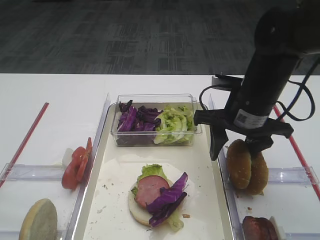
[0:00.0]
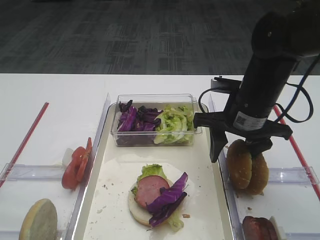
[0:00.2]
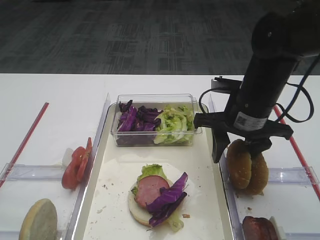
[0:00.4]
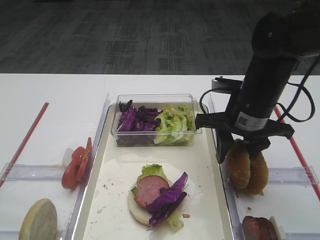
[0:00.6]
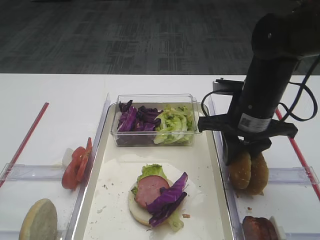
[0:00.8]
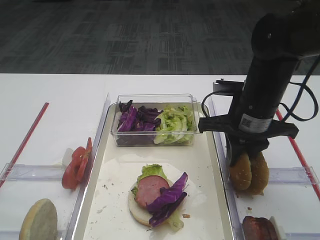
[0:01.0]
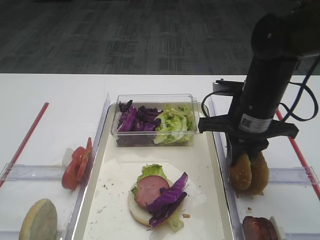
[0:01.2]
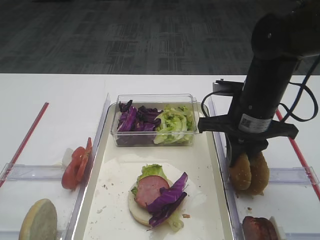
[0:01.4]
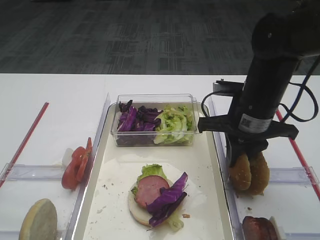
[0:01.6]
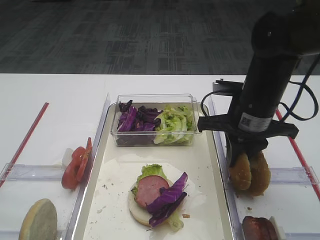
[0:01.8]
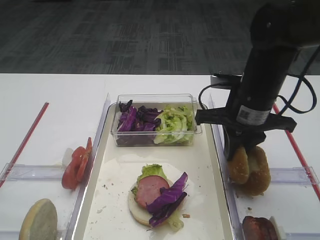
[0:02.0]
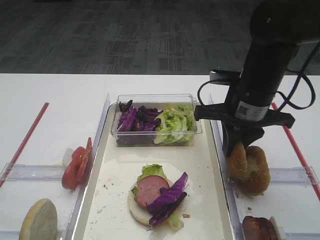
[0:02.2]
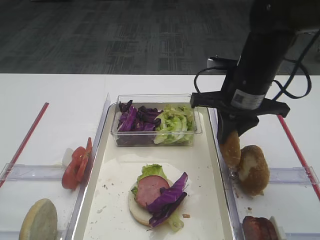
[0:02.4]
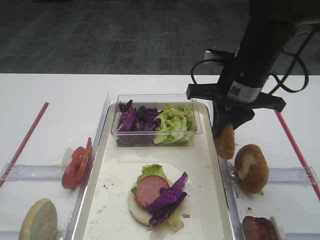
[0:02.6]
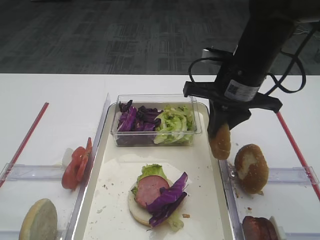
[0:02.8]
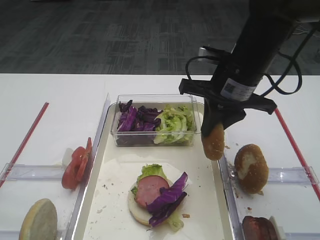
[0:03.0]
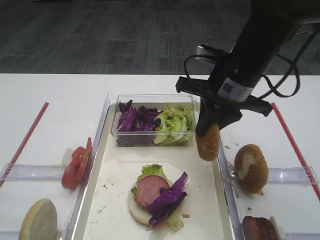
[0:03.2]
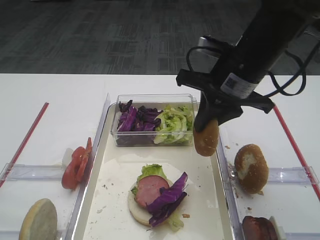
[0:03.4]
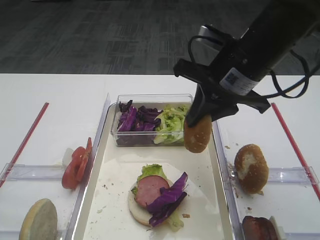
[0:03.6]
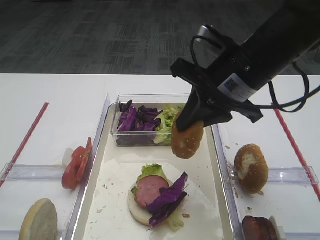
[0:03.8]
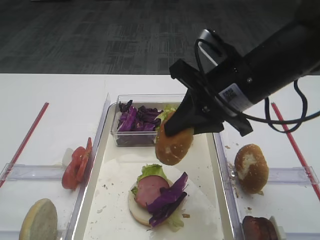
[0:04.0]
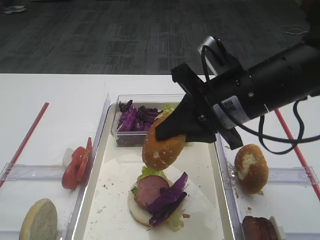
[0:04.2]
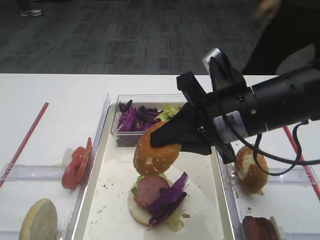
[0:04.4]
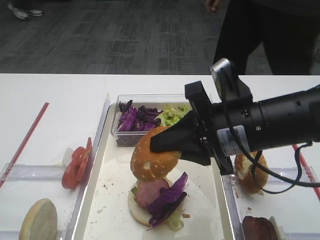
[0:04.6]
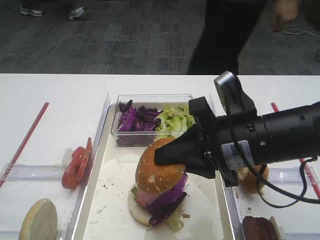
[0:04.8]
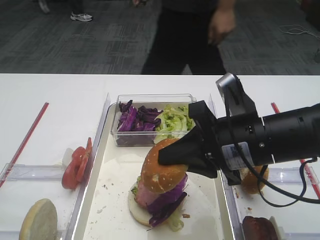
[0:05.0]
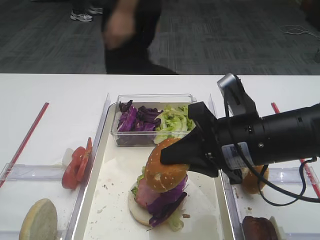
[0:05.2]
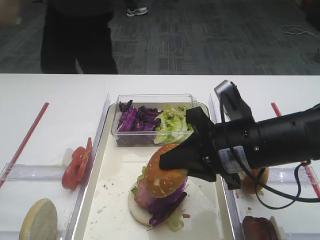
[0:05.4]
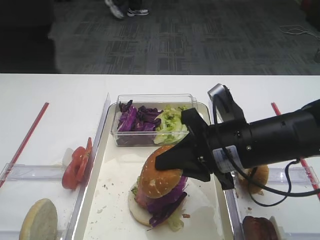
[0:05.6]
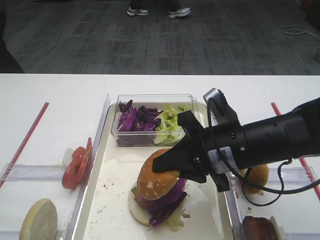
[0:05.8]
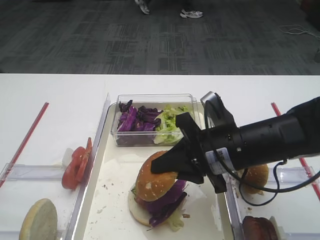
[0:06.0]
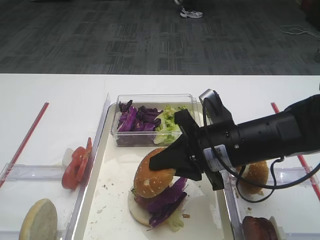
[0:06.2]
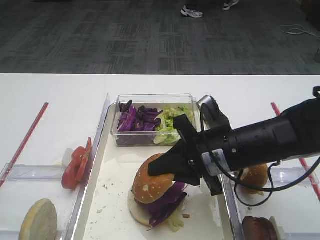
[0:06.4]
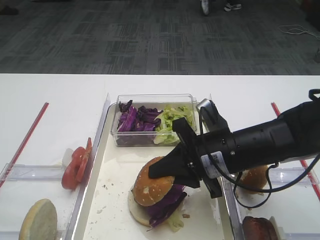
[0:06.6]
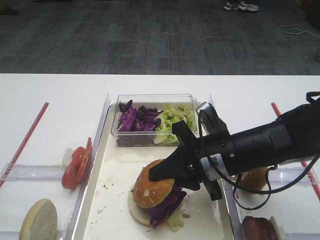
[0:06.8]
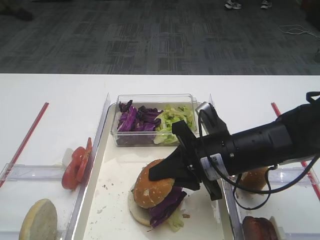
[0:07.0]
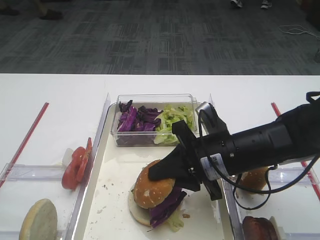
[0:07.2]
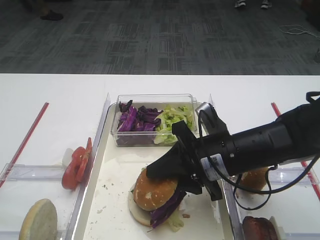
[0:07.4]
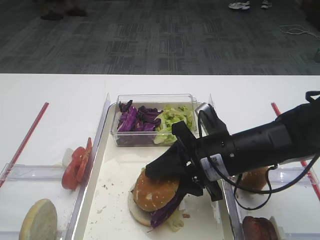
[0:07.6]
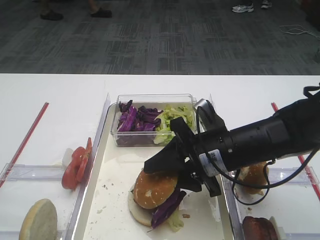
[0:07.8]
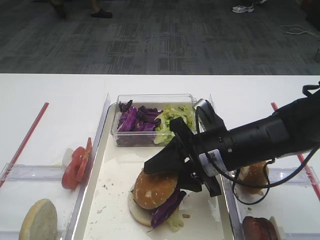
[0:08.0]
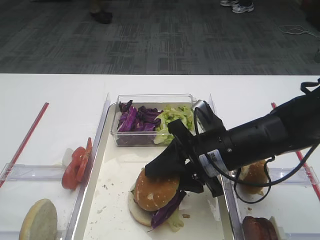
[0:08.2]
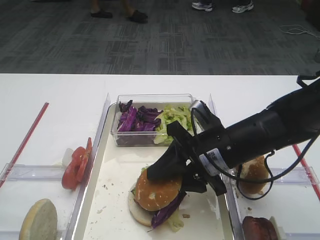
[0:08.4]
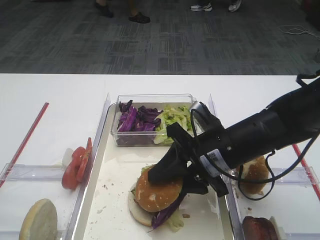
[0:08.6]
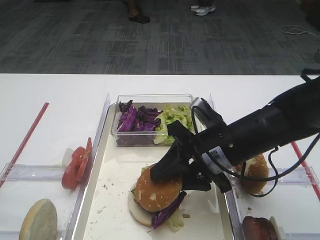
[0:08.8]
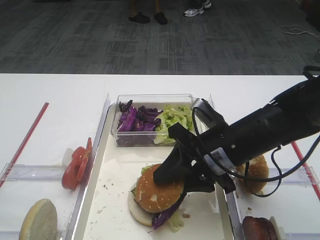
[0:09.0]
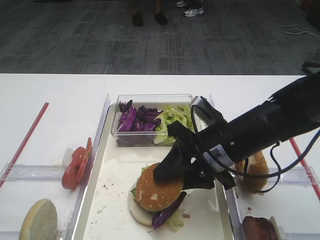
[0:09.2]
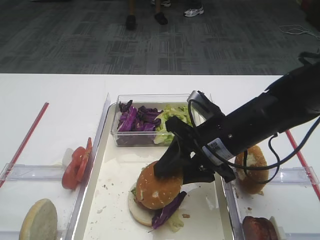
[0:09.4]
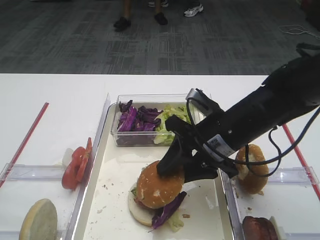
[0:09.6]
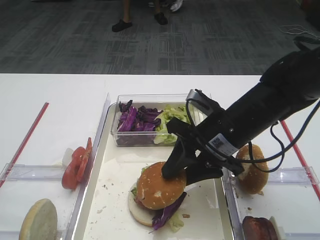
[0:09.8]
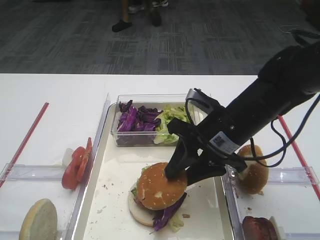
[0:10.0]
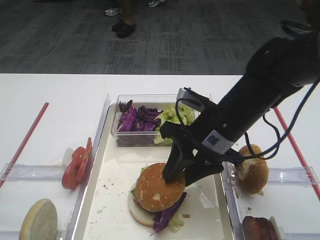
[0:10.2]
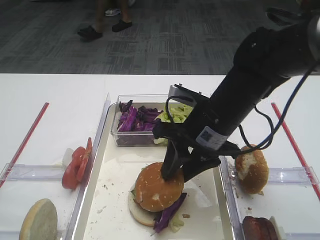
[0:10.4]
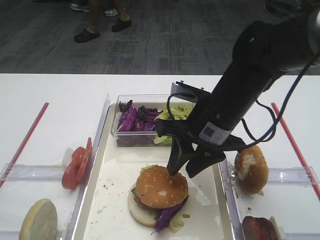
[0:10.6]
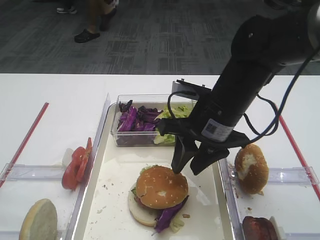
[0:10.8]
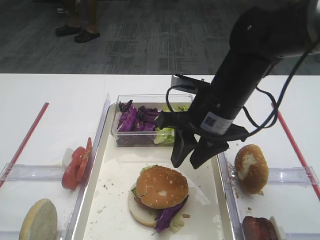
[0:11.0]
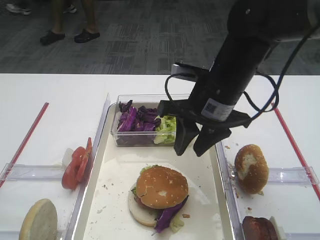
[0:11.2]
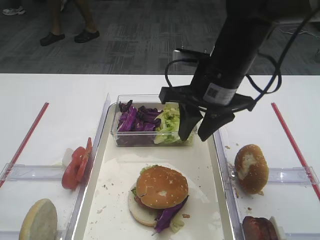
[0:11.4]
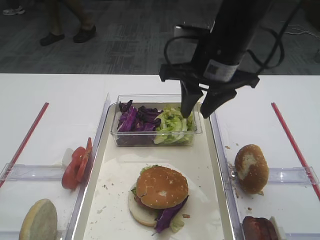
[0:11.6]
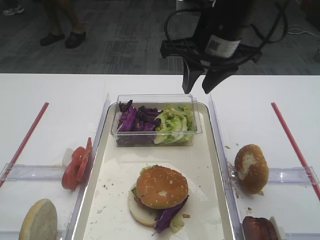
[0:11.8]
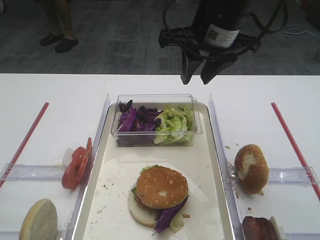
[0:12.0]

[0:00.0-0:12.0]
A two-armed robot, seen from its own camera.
Step, 0:00.0 to 0:02.8: Pick up the hamburger lid with the right gripper.
Step, 0:03.0 to 0:11.0: Place the hamburger lid on the purple cabbage with the right gripper.
0:00.0 to 0:01.6: The right gripper closes.
0:01.6 to 0:03.0: The right gripper ends up approximately 5 cm from where it was.
0:03.0 to 0:04.4: The right gripper goes about 10 cm backward.
0:04.4 to 0:06.0: The right gripper goes some 5 cm downward.
0:06.0 to 0:07.6: The right gripper opens up.
0:07.6 to 0:09.0: The grippers make only small movements.
0:10.4 to 0:12.0: The right gripper shifts roughly 15 cm upward and forward.

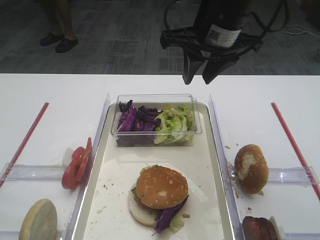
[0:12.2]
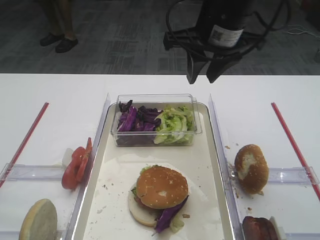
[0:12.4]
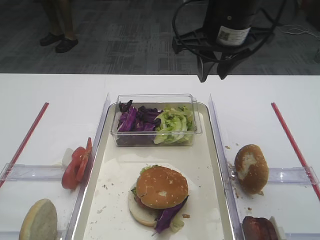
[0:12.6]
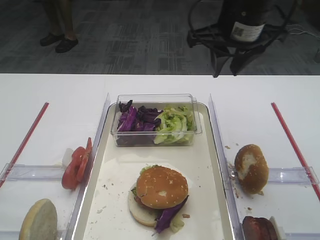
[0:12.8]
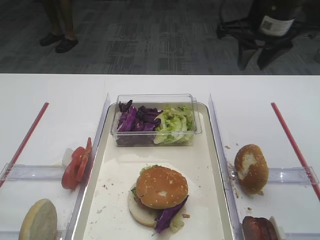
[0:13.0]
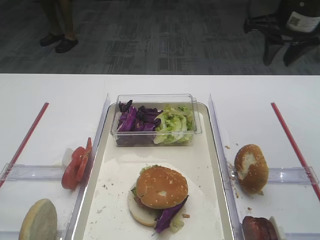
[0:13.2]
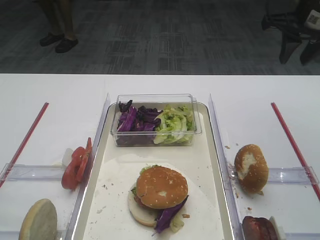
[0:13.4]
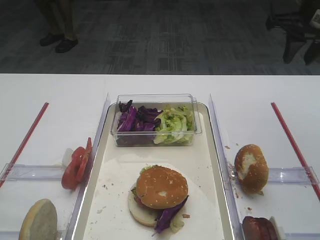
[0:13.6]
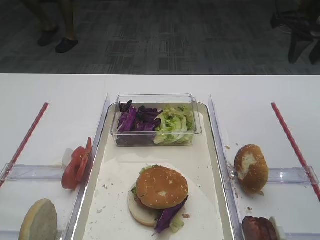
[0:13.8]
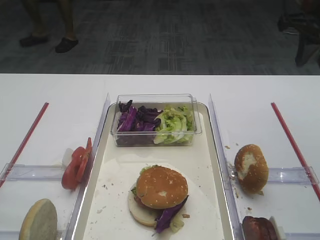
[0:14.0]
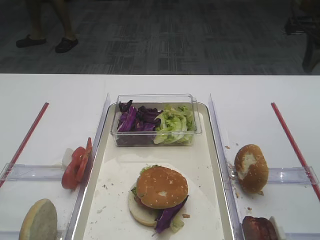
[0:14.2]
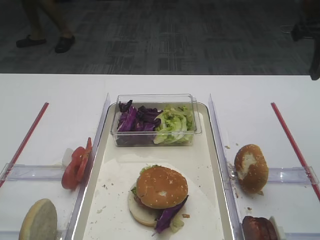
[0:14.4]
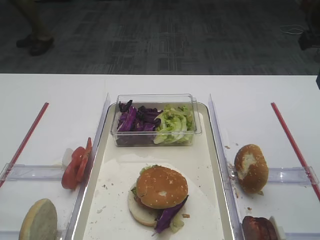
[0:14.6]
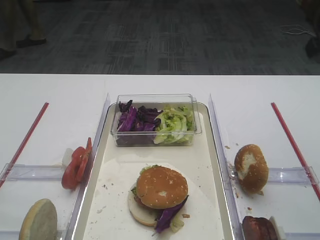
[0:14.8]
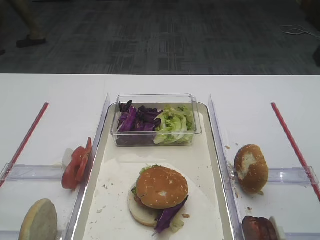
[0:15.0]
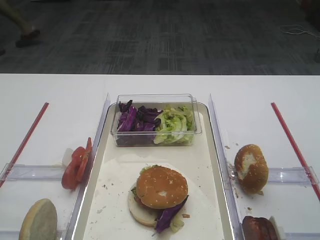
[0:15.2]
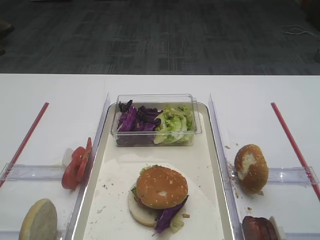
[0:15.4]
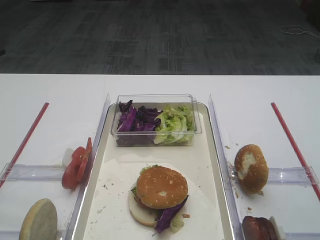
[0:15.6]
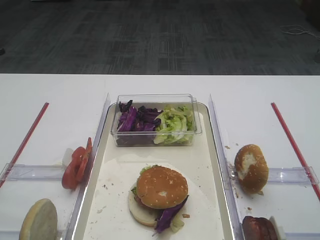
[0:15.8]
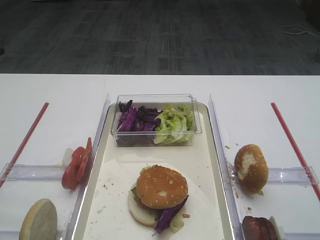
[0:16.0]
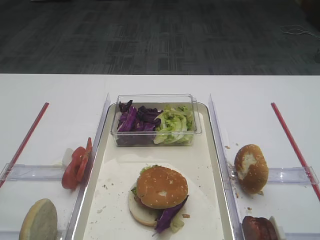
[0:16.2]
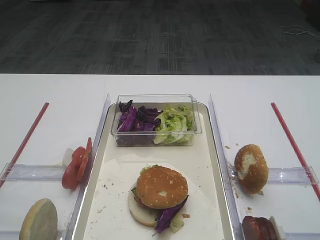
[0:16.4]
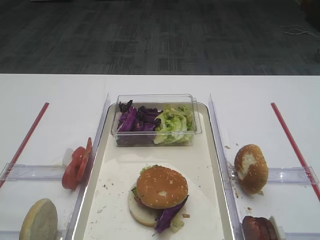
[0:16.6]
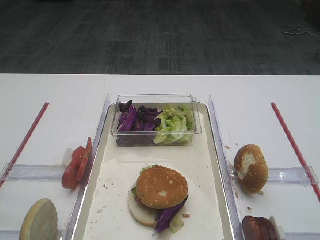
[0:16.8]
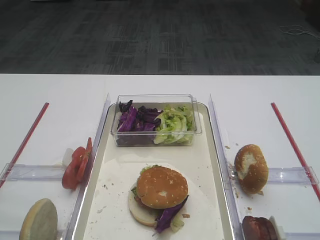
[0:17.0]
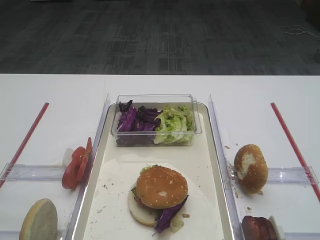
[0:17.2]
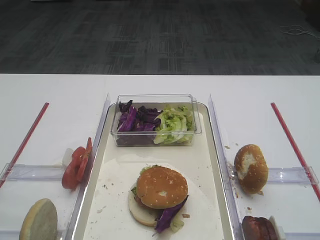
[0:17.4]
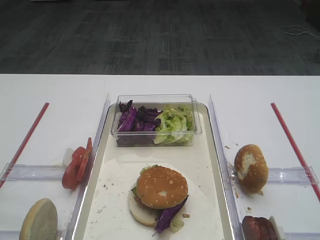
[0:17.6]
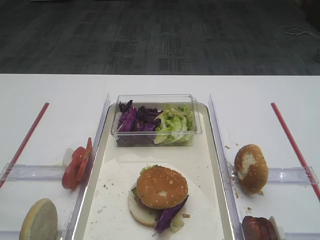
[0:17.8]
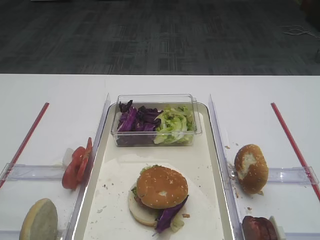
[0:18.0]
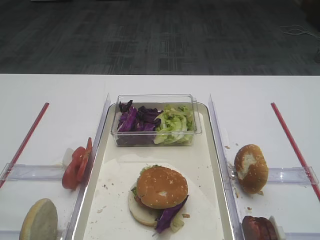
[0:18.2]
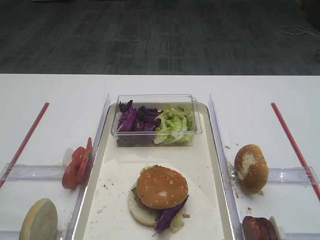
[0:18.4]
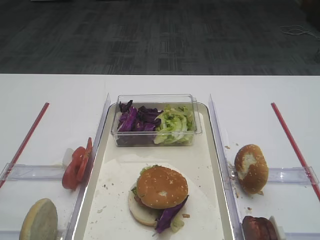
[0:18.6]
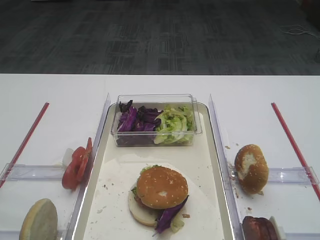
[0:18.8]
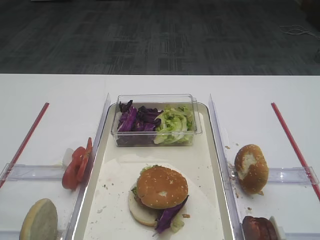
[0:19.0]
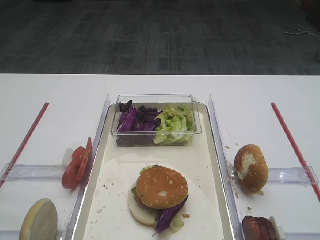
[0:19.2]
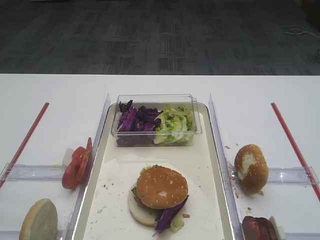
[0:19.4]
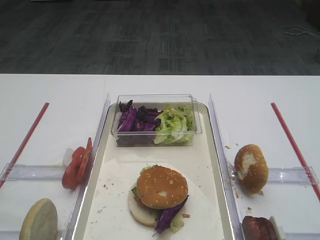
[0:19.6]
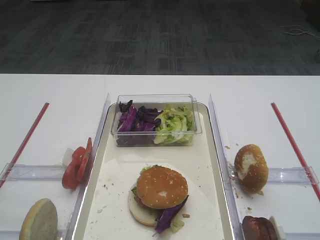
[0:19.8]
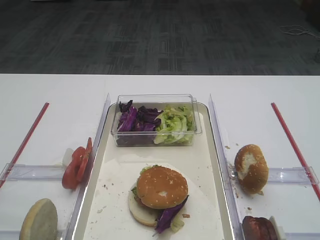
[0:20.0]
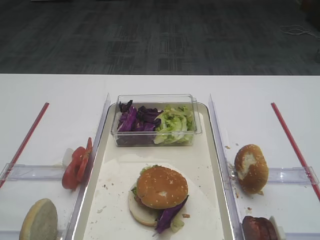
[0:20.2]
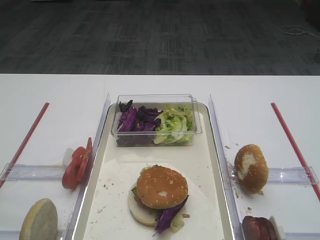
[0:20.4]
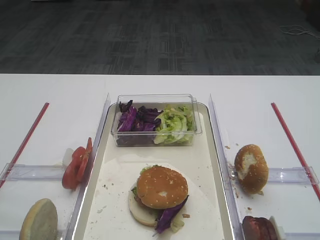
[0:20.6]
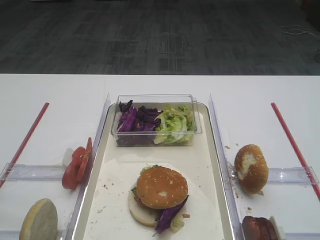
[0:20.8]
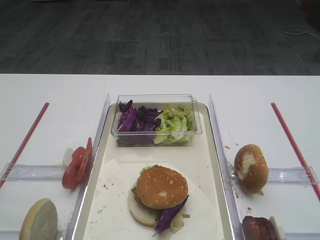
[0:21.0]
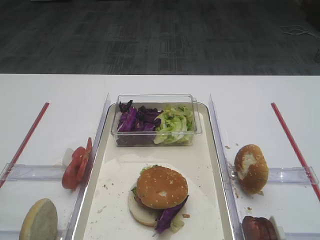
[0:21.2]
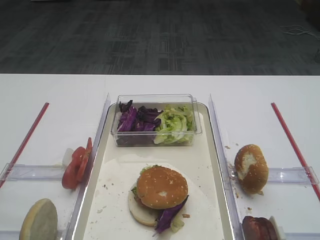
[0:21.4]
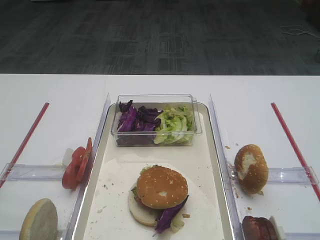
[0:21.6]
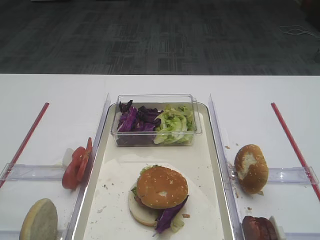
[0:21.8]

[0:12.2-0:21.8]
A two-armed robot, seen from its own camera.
0:12.2 to 0:13.8: The right gripper shifts roughly 15 cm to the right.
0:18.6 to 0:21.8: Both grippers stay put.

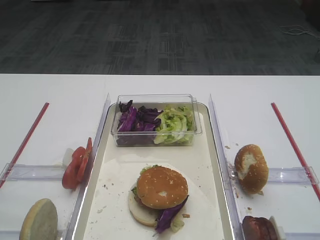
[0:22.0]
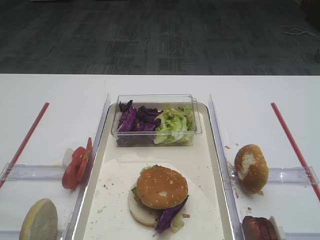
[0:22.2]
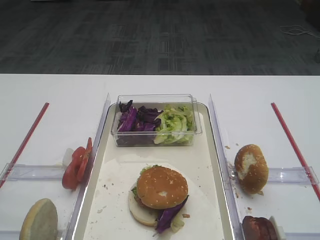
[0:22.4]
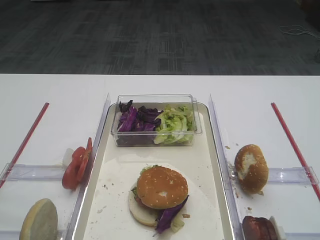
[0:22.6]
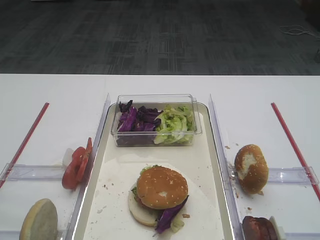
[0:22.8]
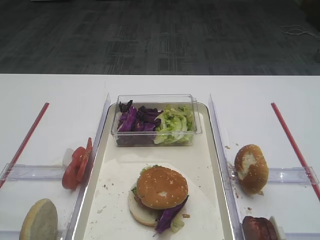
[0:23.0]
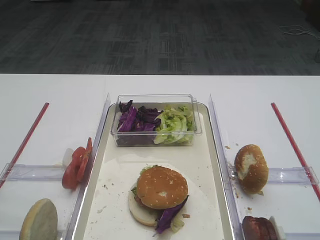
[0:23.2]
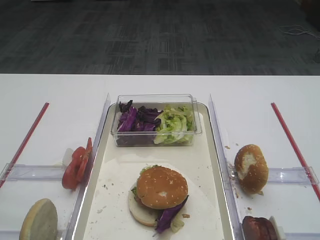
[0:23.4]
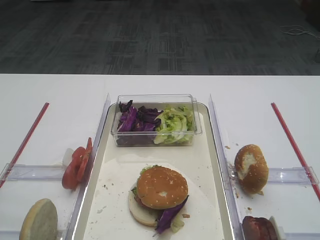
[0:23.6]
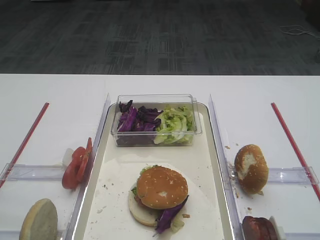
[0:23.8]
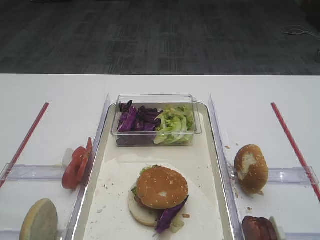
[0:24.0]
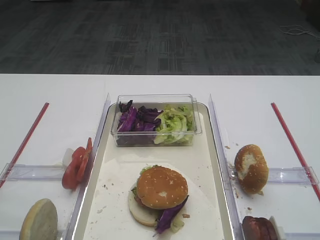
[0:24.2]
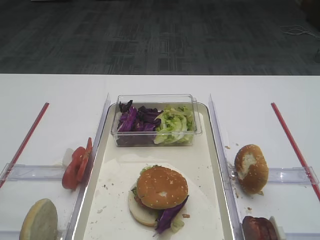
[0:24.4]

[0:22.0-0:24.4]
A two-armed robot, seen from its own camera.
0:22.0 to 0:24.4: The two grippers keep their place.
